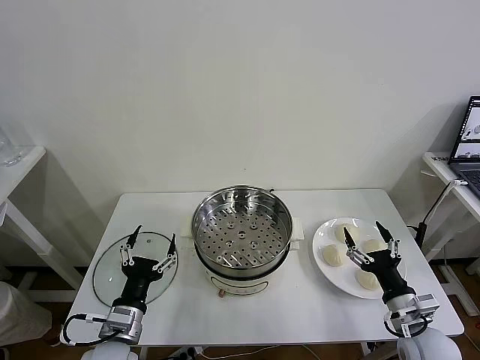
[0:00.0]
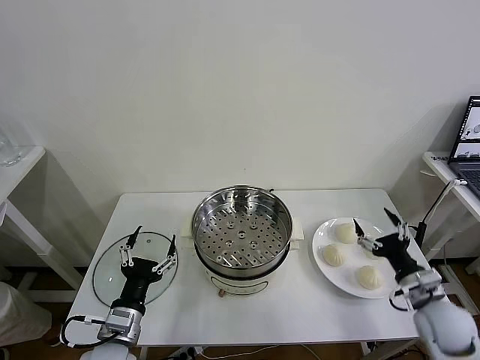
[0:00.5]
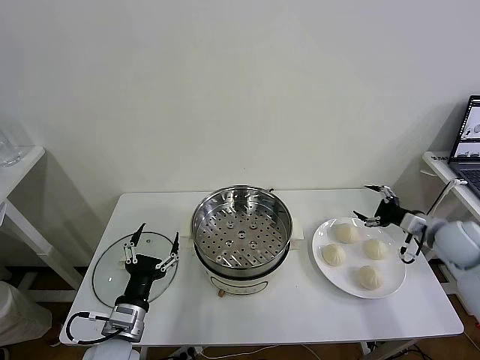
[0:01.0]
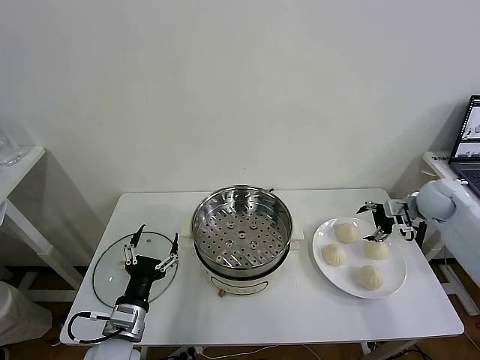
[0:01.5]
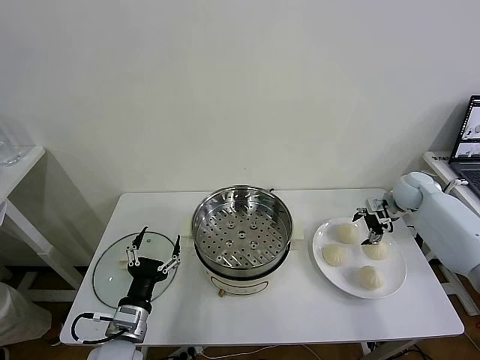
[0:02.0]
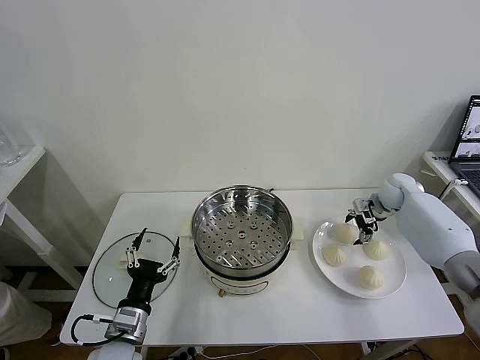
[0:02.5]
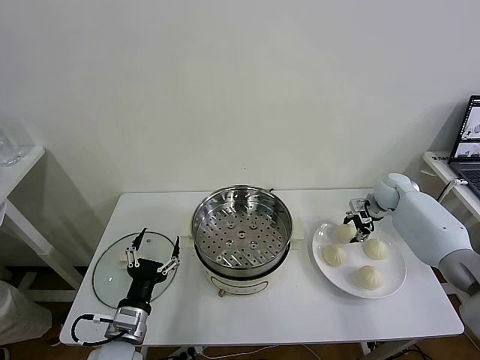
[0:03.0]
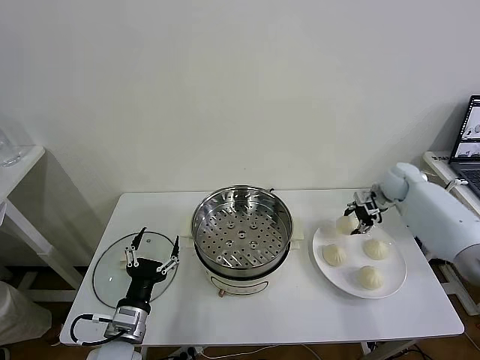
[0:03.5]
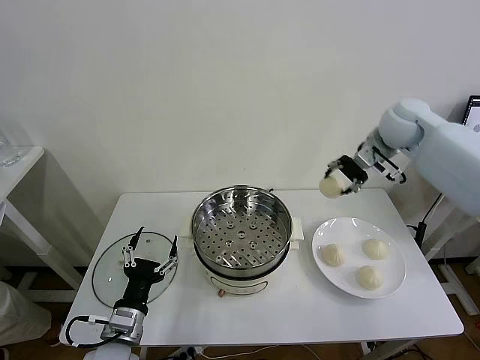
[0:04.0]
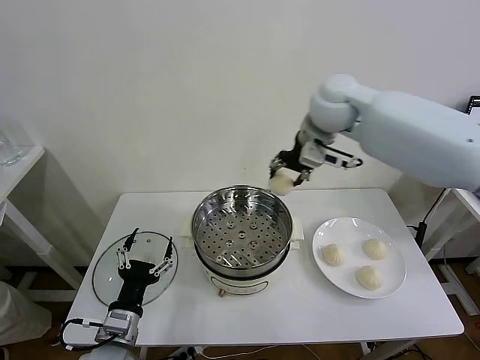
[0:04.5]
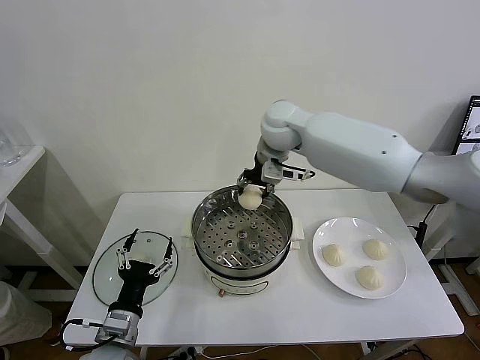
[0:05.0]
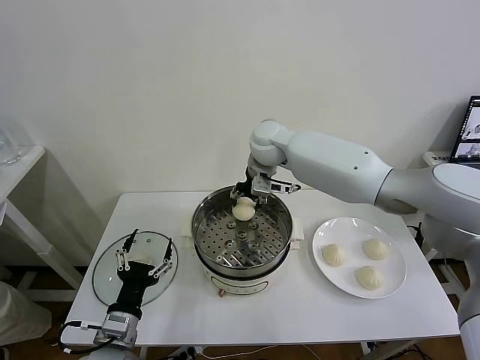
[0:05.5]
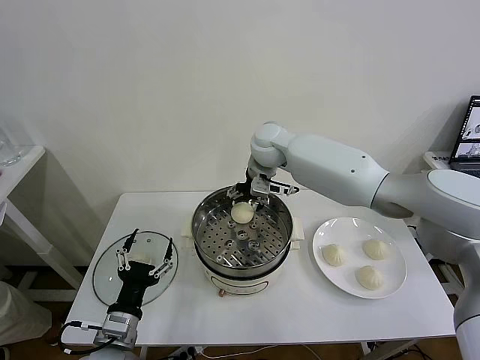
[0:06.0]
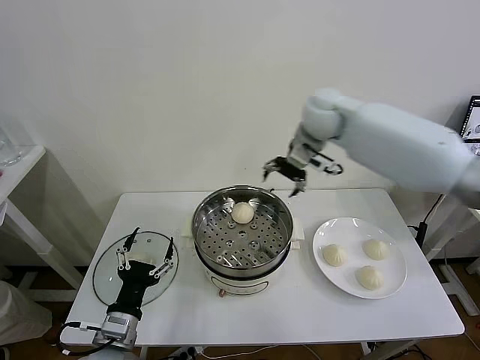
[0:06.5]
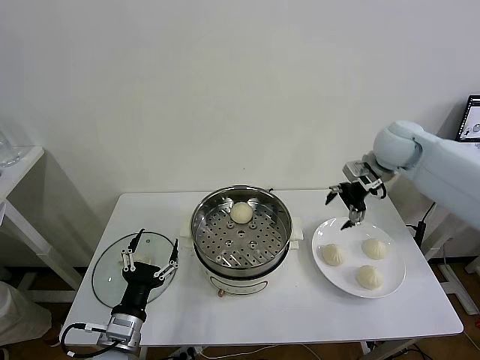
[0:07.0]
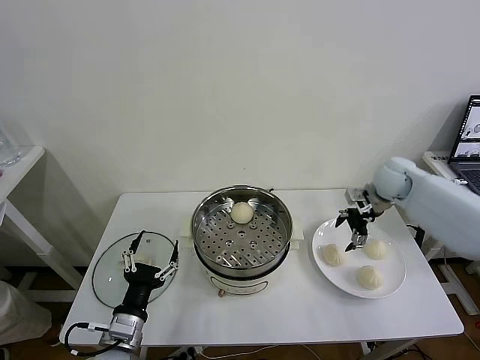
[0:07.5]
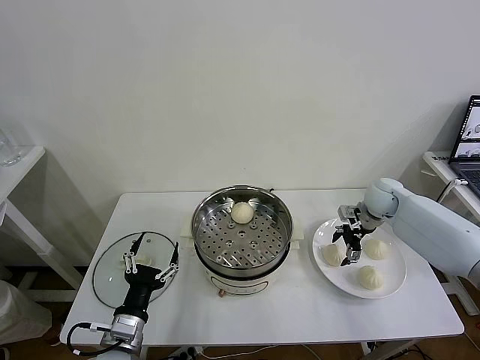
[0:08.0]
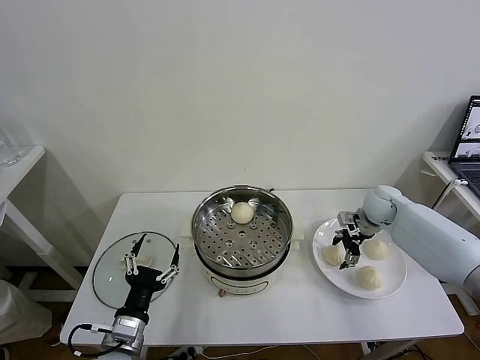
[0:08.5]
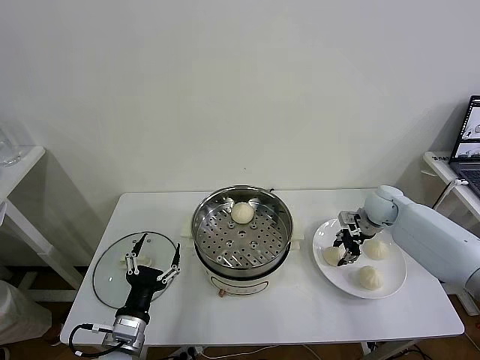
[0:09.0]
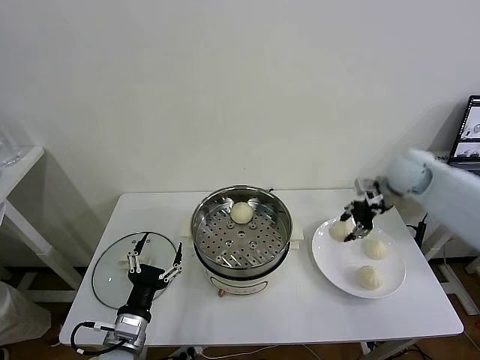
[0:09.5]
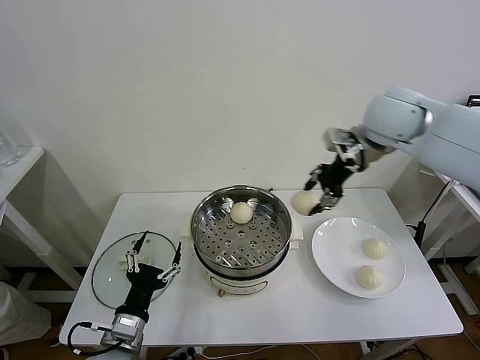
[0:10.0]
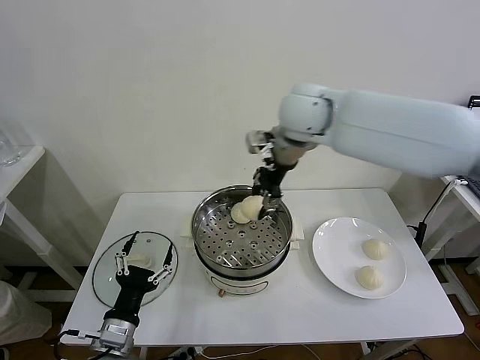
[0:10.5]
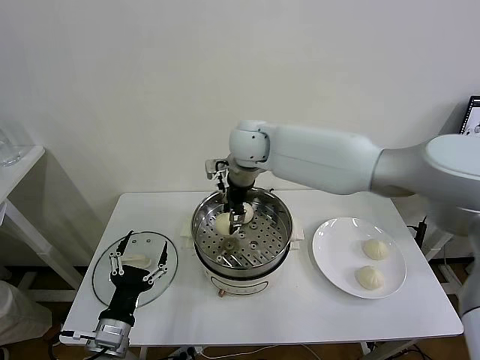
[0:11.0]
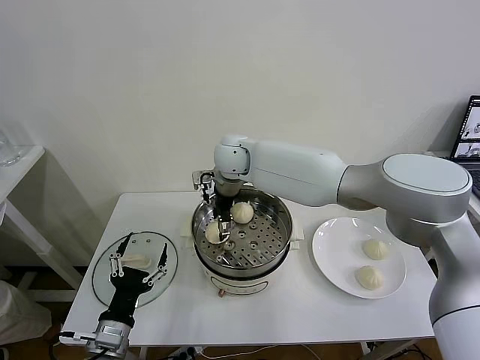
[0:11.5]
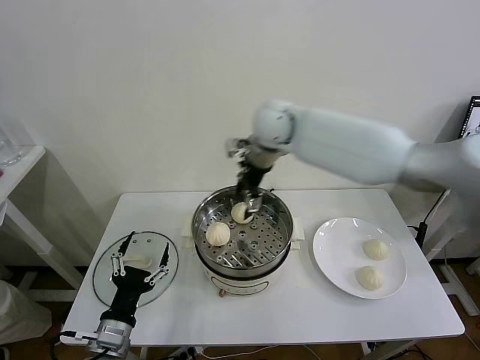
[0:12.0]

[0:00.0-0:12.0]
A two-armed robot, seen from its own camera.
Task of the whole recording: take steamed baozi put them in steamer then cover it.
Step, 0:00.0 to 0:02.5: Grasp the baozi in the plate with right gripper.
Step, 0:03.5 to 0:06.0: Place the baozi on the steamer with right gripper.
Step, 0:06.5 to 0:08.5: Grasp the baozi in the plate with right gripper.
Step, 0:09.0 to 0:11.5: Place the baozi on the steamer with right gripper.
0:02.0 to 0:04.0: The right gripper heads upward and to the left, covering roughly 30 cm, and closes its fingers.
0:04.0 to 0:06.0: The right gripper is displaced to the left and downward by roughly 25 cm, and opens.
0:06.0 to 0:08.0: The right gripper is displaced to the right and downward by approximately 35 cm.
0:08.0 to 0:10.0: The right gripper heads upward and to the left, covering approximately 30 cm, and closes its fingers.
0:10.0 to 0:12.0: The right gripper heads to the left and forward, covering roughly 15 cm, and opens its fingers.

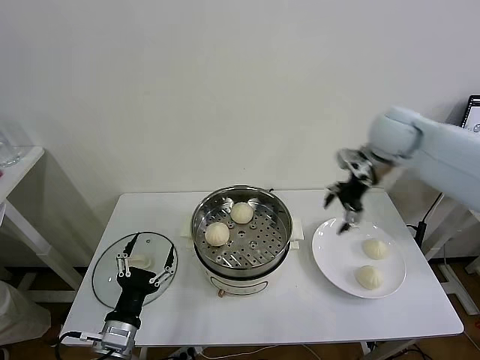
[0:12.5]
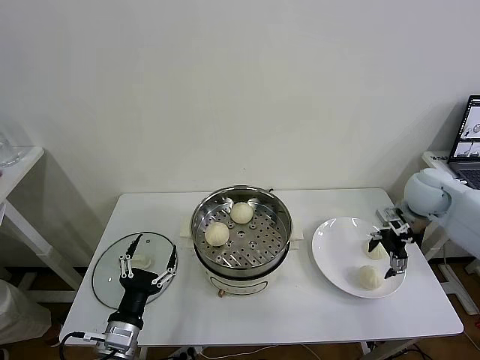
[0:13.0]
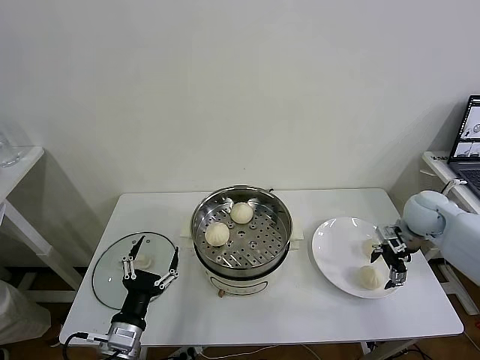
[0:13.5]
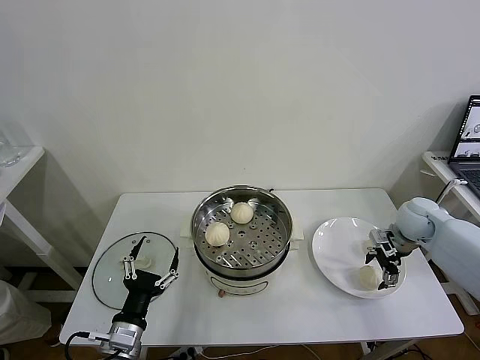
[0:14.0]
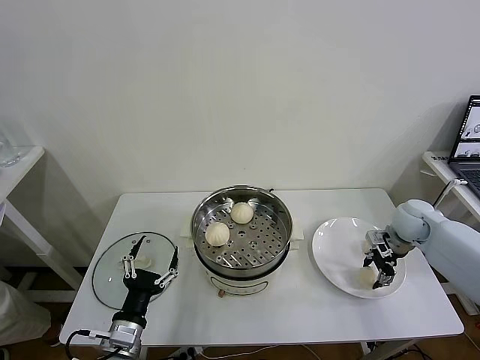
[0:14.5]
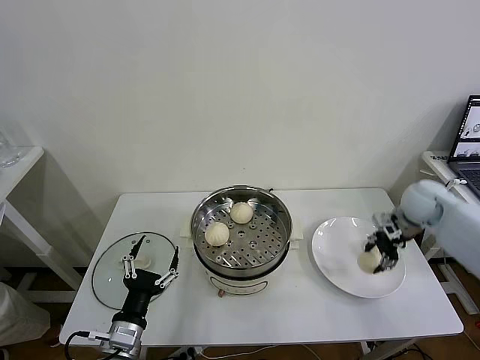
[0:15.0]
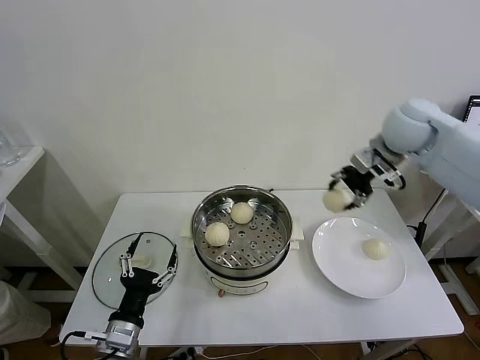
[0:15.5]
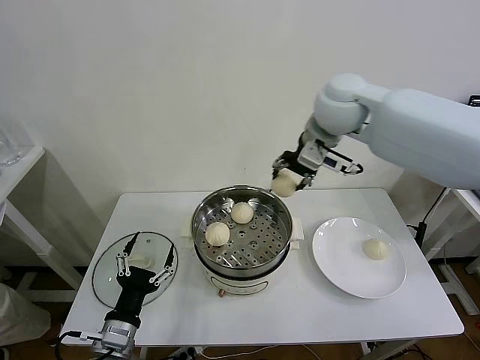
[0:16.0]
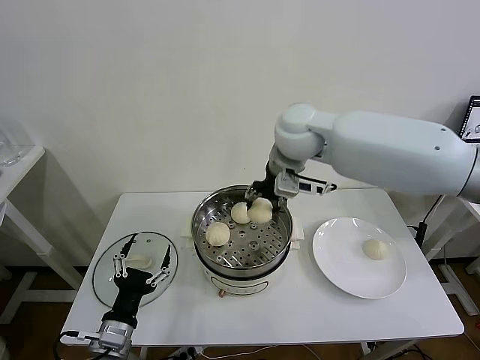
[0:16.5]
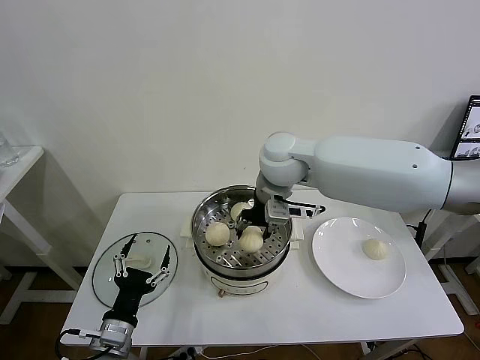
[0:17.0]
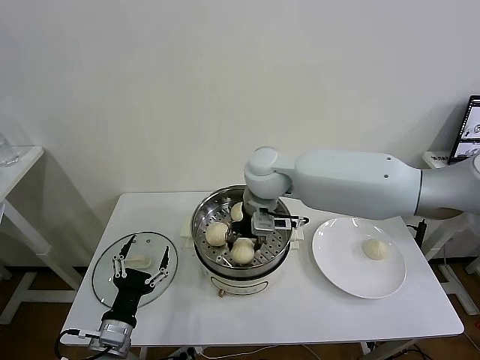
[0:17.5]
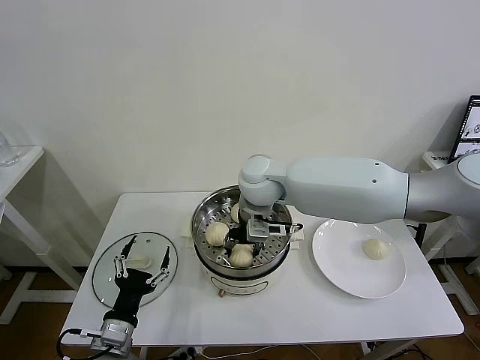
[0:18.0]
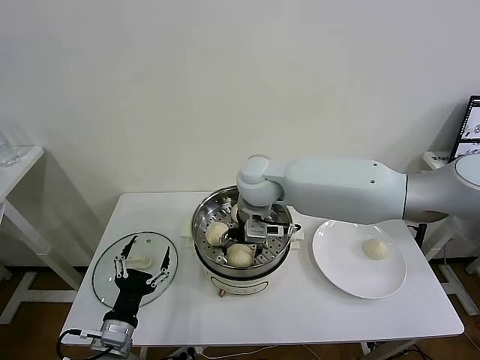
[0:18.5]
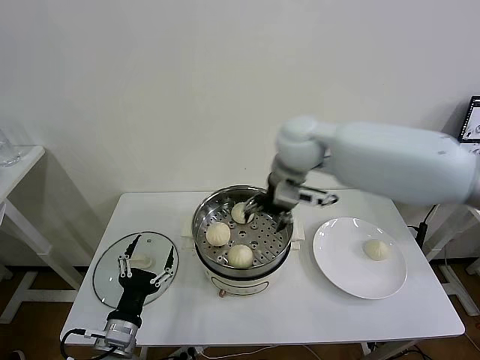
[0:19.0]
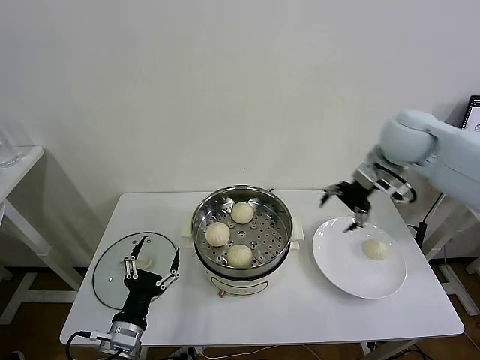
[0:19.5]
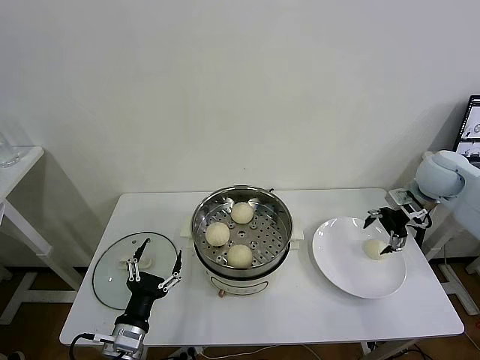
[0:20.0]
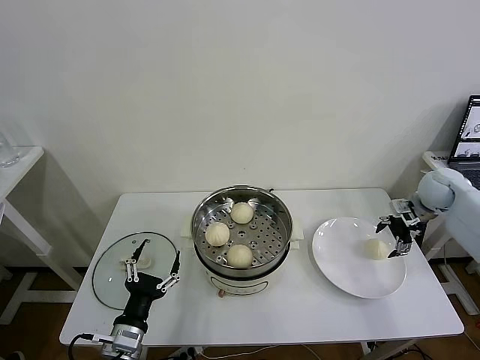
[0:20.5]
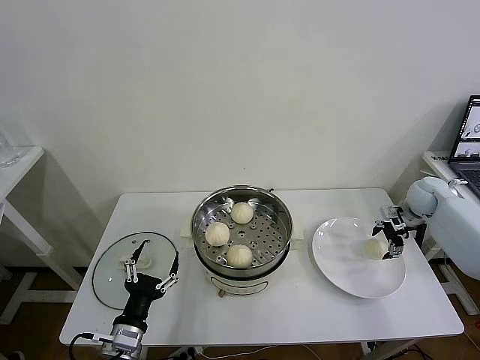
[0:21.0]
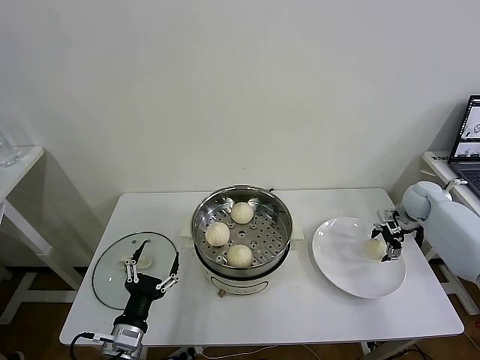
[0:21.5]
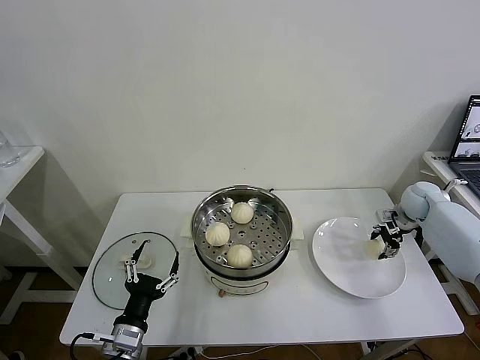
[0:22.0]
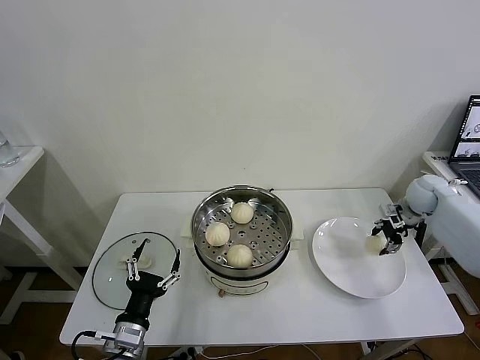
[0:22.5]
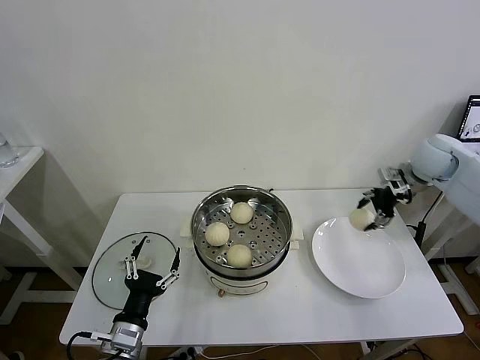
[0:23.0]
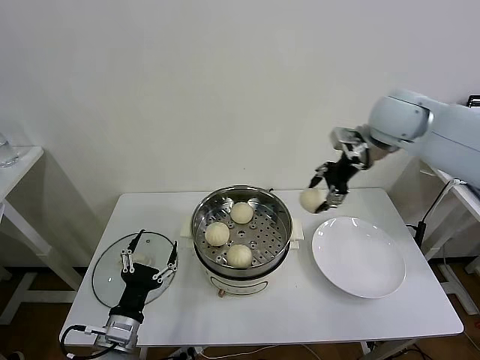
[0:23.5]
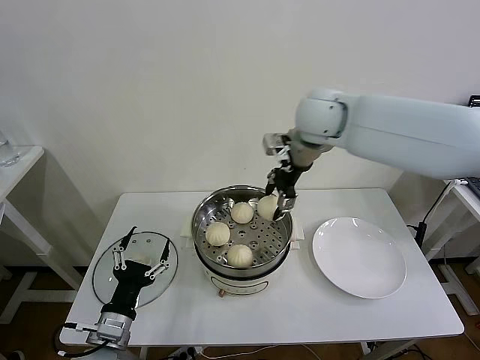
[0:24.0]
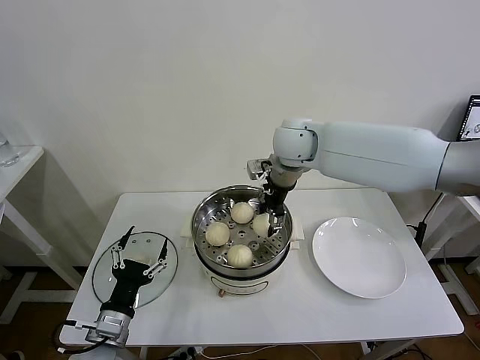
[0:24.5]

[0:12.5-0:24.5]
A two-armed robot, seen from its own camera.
Task of the whole recording: take steamed baozi put them in steamer then cover it.
Step, 0:12.5 to 0:14.0: Grasp the baozi in the plate with right gripper.
Step, 0:15.0 to 0:18.5: Place the baozi on the steamer with right gripper.
Step, 0:19.0 to 0:22.0: Grasp the baozi in the plate with right gripper.
0:12.5 to 0:14.5: The right gripper goes about 20 cm downward and to the right, and closes up.
0:14.5 to 0:16.5: The right gripper moves to the left and upward, approximately 40 cm.
0:16.5 to 0:18.5: The right gripper travels downward and to the left by some 10 cm, and opens its fingers.
0:18.5 to 0:20.5: The right gripper is displaced to the right by approximately 40 cm.
0:20.5 to 0:22.5: The right gripper closes.
0:22.5 to 0:24.5: The right gripper travels to the left and upward by roughly 40 cm.

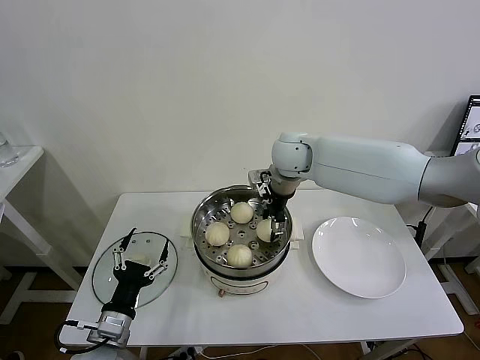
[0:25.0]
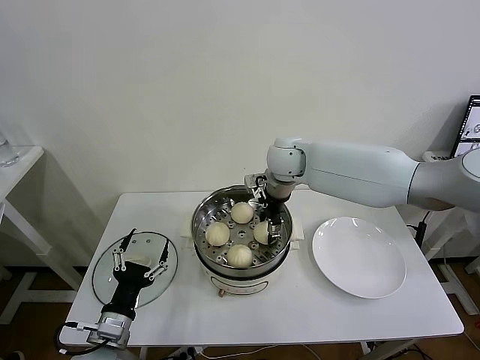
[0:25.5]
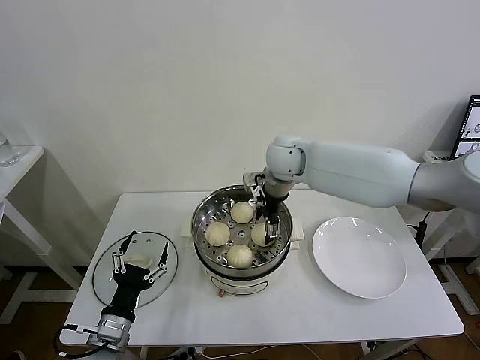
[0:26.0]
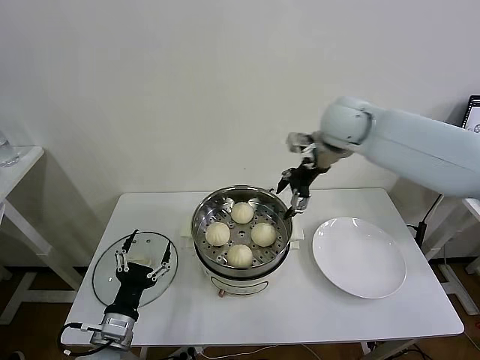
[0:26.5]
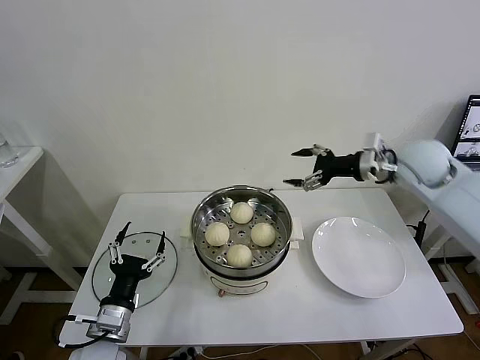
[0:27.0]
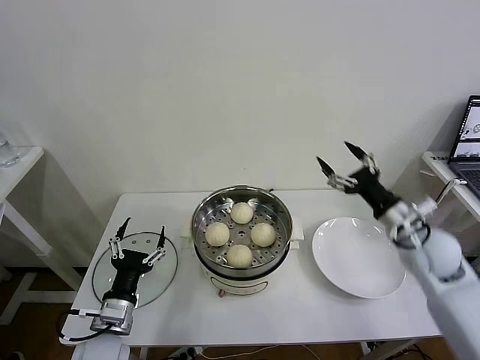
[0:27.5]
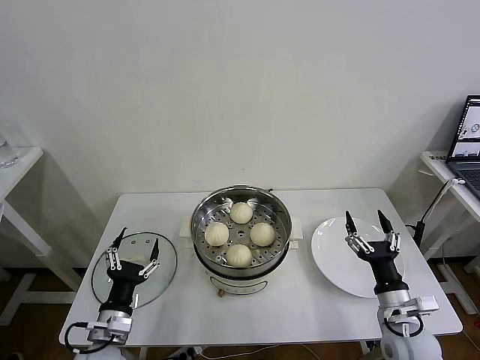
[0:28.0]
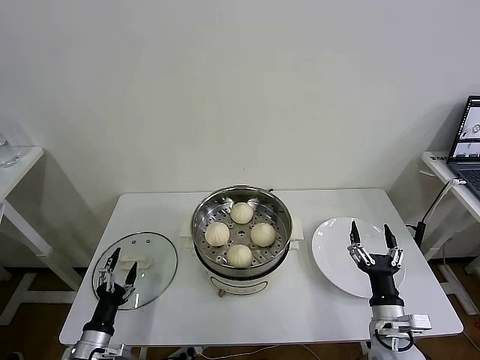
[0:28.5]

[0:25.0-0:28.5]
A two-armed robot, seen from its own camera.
Task of the whole recording: take steamed baozi put them in steamer then cover it.
0:25.0 to 0:27.0: The right gripper moves to the right, approximately 25 cm, and opens.
0:27.0 to 0:28.5: The left gripper travels downward and to the left by approximately 15 cm. Meanwhile the right gripper is displaced downward and backward by roughly 40 cm.
